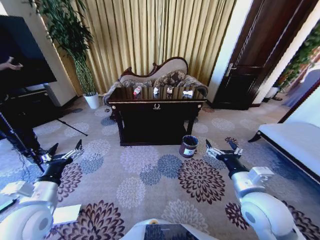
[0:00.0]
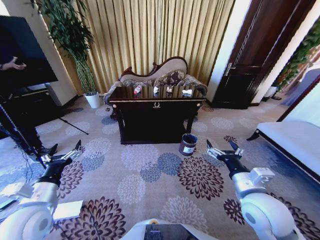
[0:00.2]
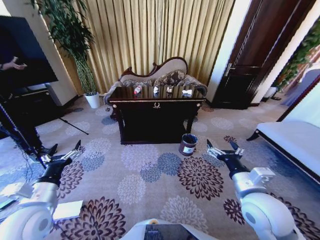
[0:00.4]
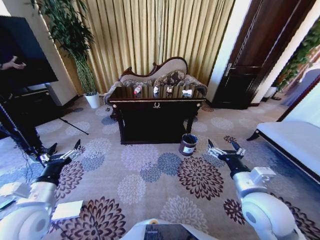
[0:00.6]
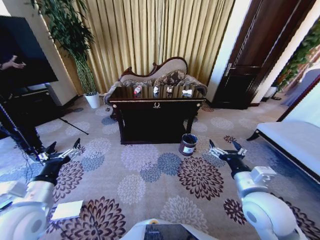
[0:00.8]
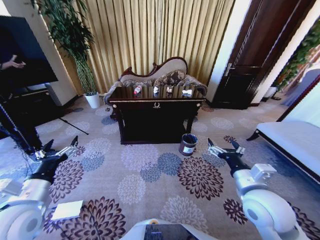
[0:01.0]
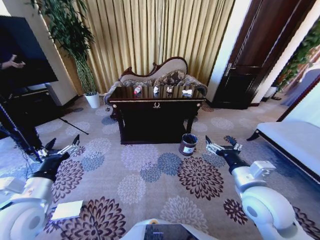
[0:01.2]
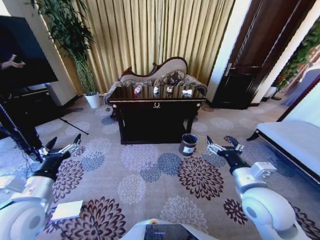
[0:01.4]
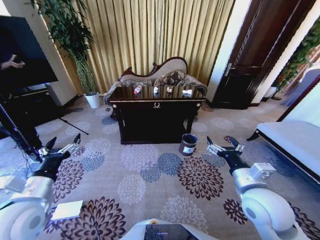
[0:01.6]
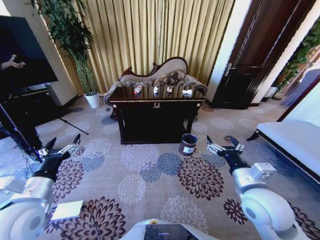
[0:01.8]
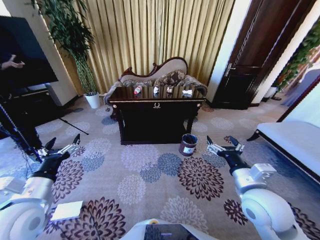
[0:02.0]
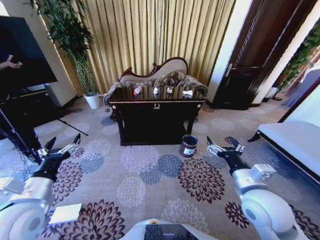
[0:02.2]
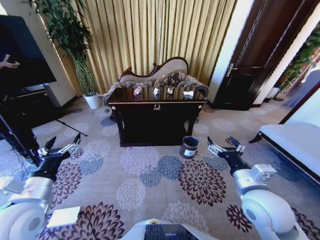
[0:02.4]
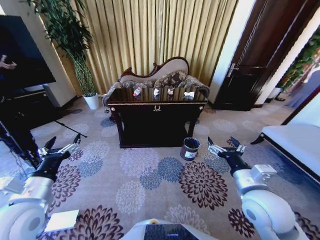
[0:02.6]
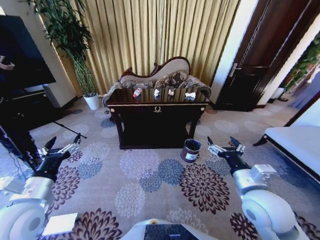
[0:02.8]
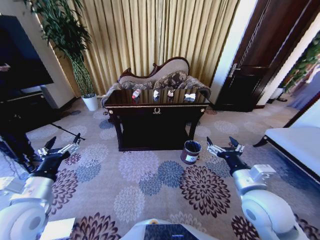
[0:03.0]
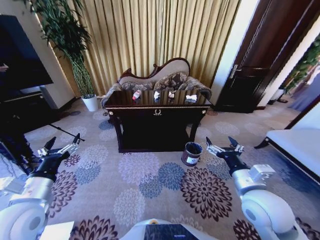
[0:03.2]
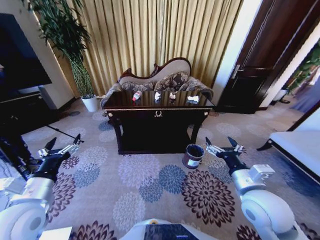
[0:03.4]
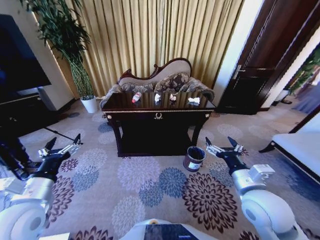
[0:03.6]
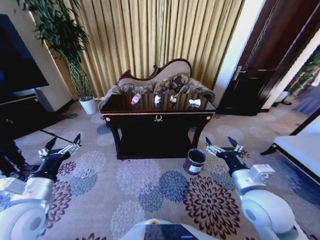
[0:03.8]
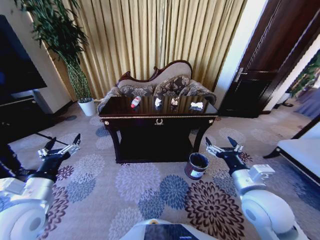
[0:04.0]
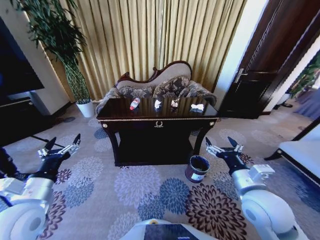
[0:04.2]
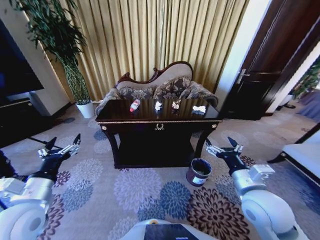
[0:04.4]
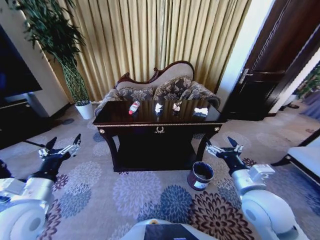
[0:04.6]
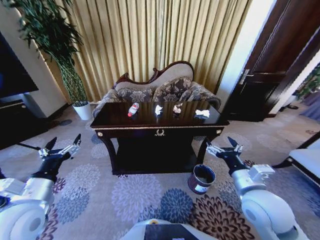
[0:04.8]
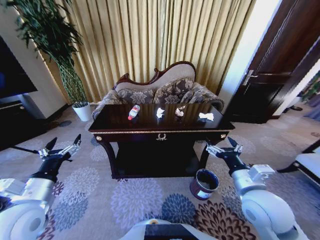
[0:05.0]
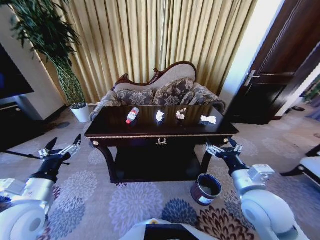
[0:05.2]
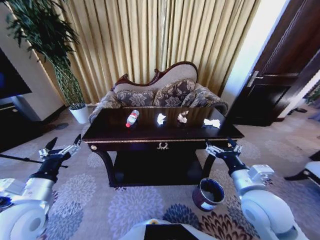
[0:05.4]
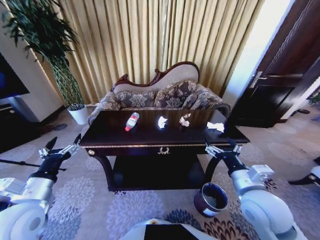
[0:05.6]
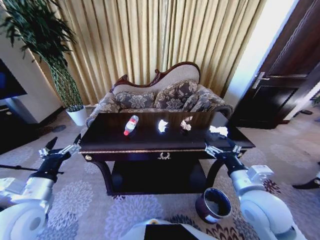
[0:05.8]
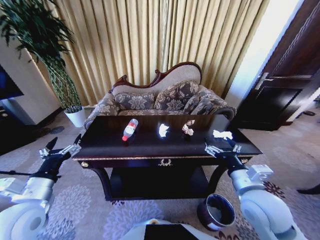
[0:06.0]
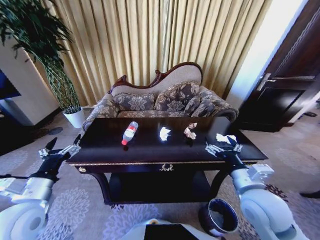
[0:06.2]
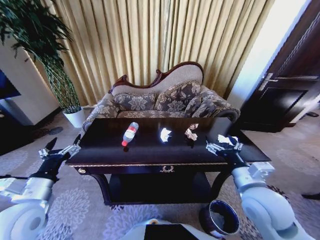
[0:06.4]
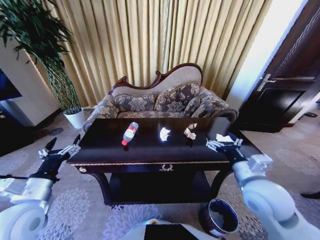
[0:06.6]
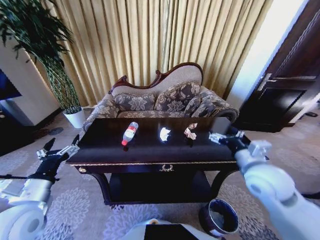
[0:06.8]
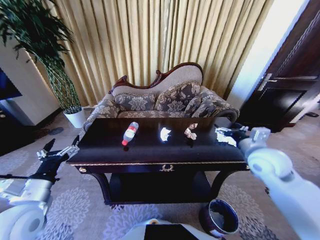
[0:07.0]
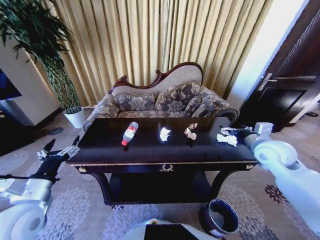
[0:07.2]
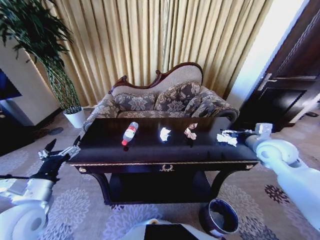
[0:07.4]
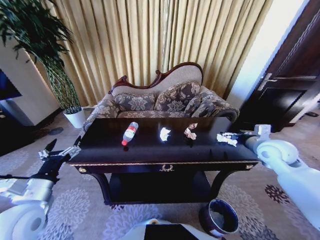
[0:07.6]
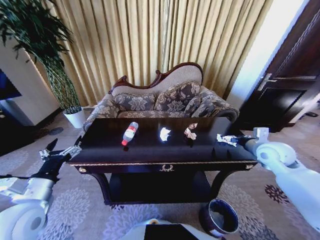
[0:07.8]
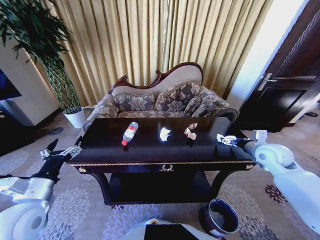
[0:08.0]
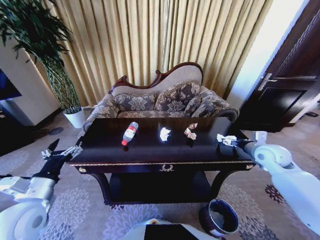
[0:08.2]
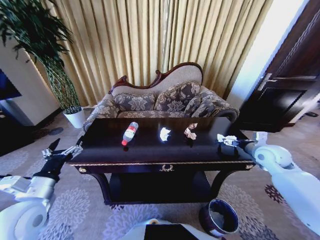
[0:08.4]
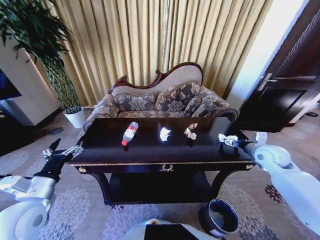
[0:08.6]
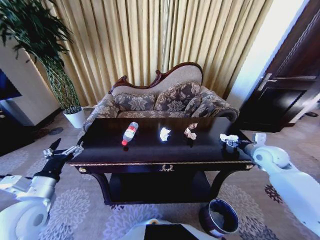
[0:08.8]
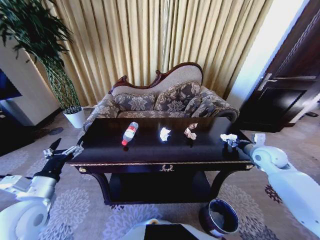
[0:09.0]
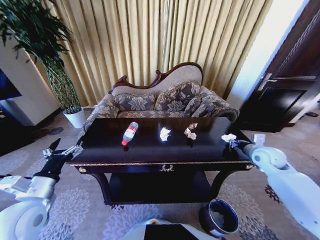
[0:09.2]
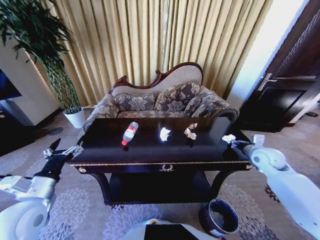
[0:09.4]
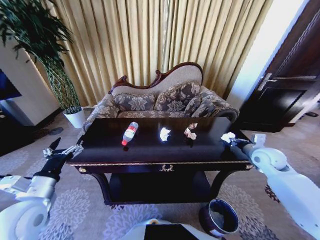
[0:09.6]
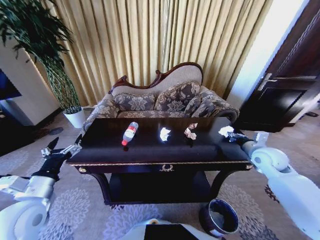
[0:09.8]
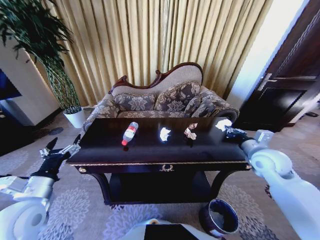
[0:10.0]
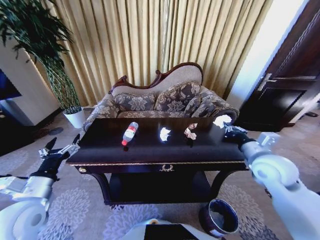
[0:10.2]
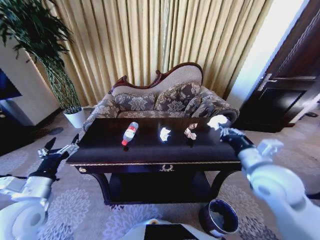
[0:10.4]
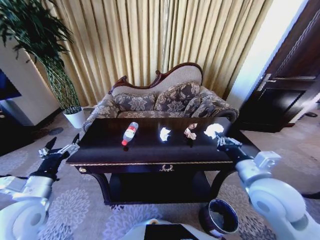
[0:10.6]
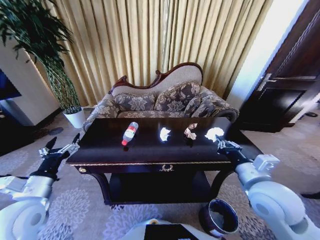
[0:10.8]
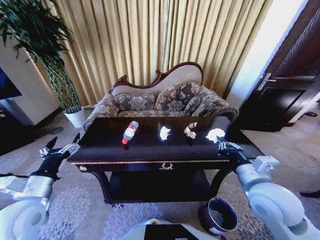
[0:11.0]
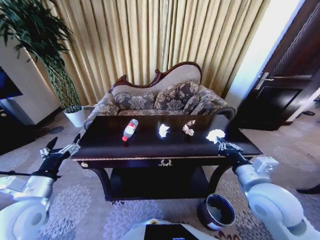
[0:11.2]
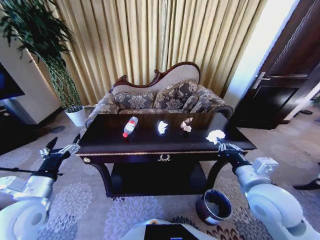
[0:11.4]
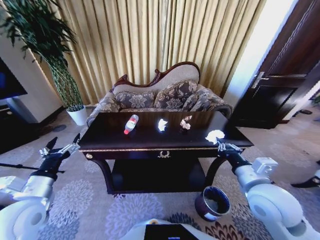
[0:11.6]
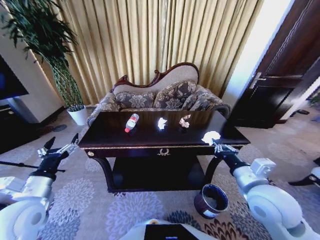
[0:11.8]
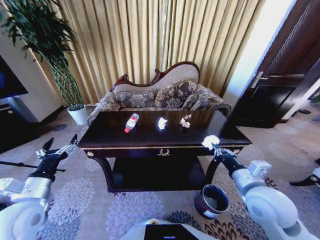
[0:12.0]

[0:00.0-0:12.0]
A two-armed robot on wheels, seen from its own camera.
Task of the whole recording: Move to the front of the table and place the trash on the table into the trash bin.
0:06.0 to 0:07.6: The right gripper heads forward and to the right, covering some 20 cm.
0:07.6 to 0:09.0: The right gripper goes about 5 cm downward, and closes up.
0:09.0 to 0:10.4: The right gripper shifts some 25 cm to the left, backward and upward, and closes its fingers.
0:10.4 to 0:12.0: The right gripper is displaced downward by some 5 cm.

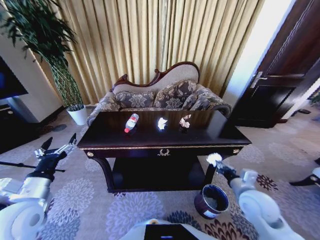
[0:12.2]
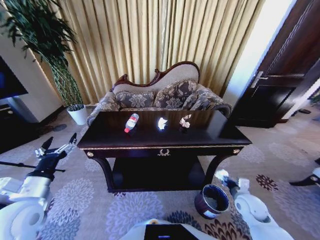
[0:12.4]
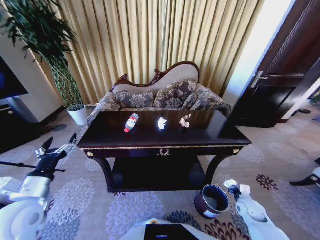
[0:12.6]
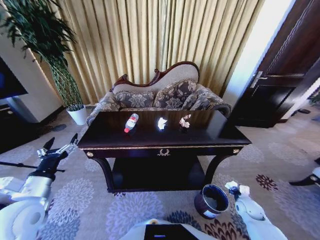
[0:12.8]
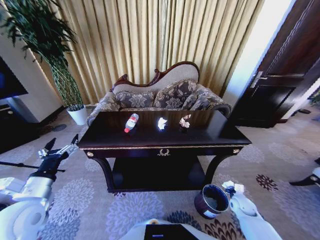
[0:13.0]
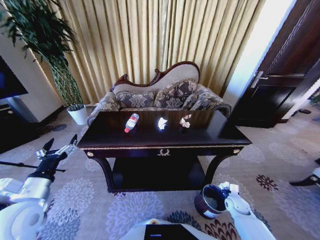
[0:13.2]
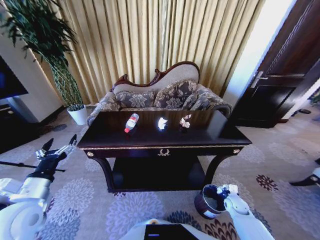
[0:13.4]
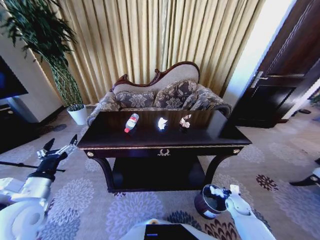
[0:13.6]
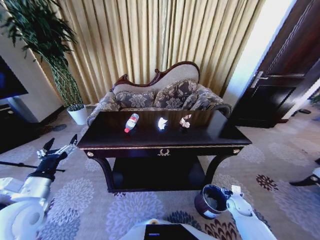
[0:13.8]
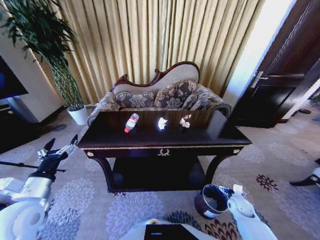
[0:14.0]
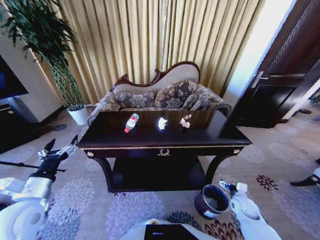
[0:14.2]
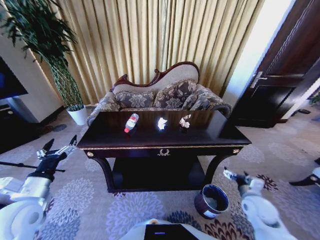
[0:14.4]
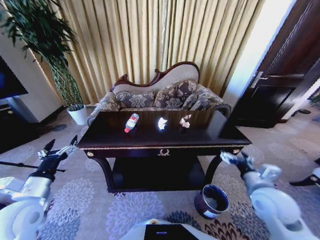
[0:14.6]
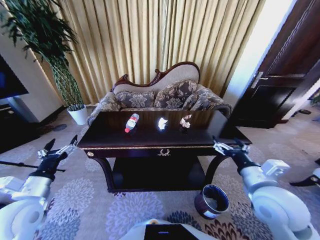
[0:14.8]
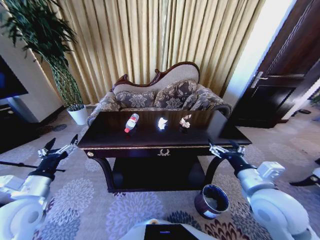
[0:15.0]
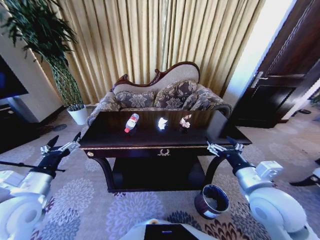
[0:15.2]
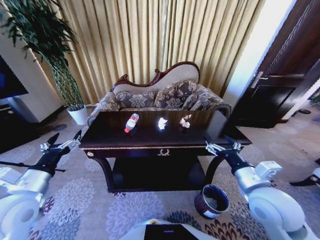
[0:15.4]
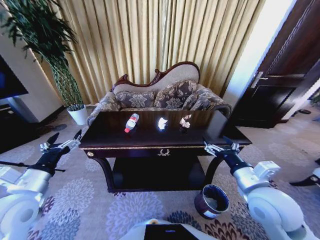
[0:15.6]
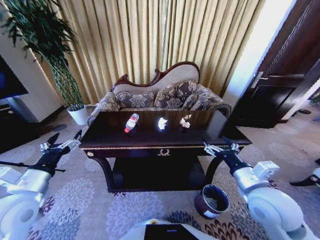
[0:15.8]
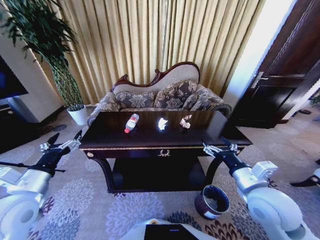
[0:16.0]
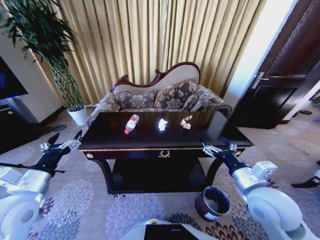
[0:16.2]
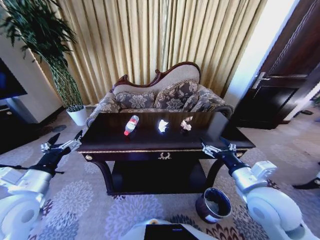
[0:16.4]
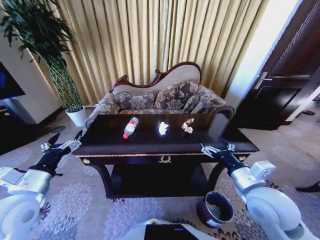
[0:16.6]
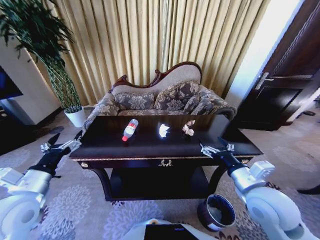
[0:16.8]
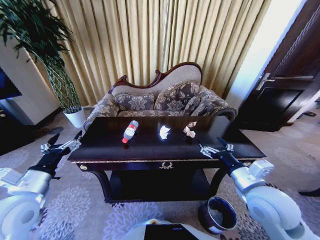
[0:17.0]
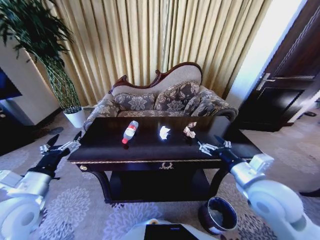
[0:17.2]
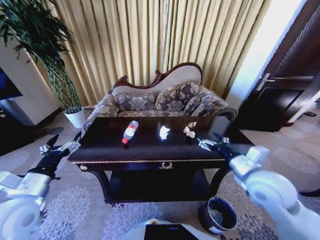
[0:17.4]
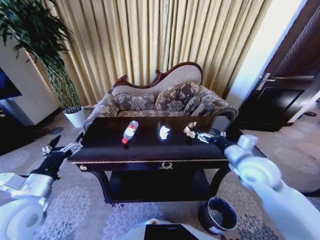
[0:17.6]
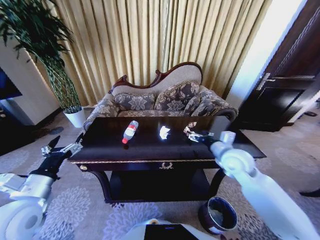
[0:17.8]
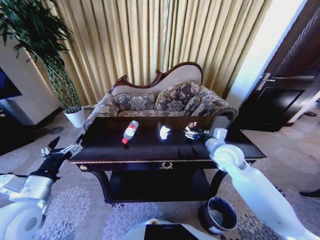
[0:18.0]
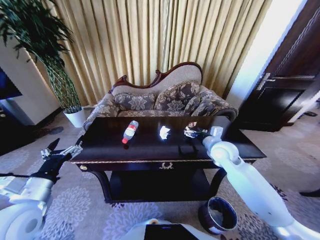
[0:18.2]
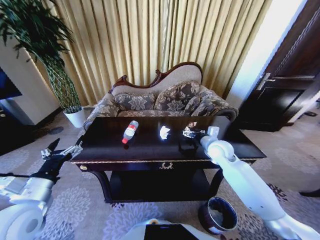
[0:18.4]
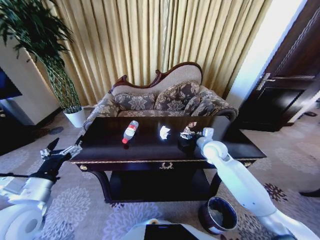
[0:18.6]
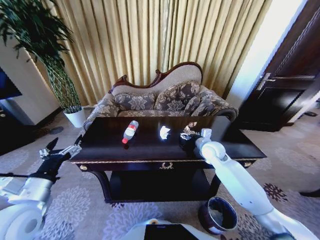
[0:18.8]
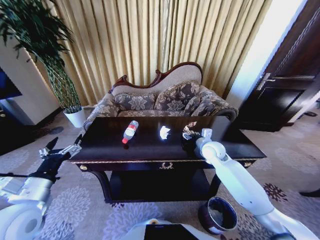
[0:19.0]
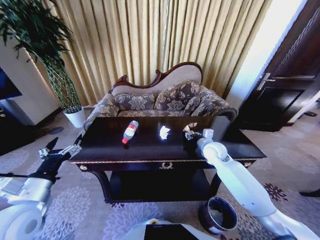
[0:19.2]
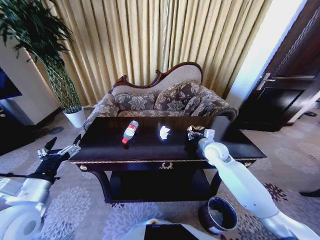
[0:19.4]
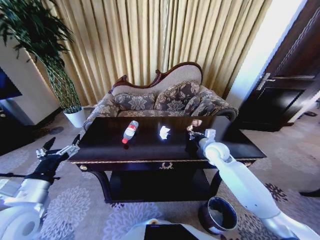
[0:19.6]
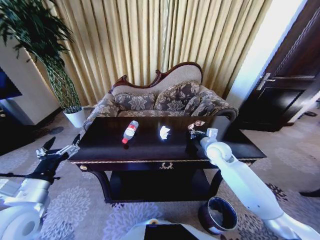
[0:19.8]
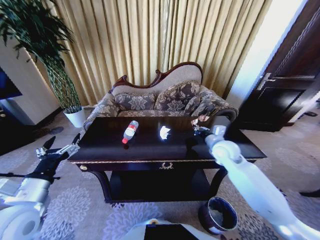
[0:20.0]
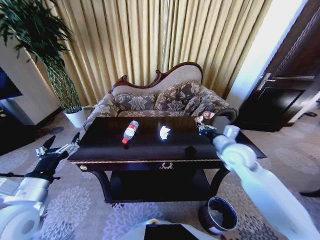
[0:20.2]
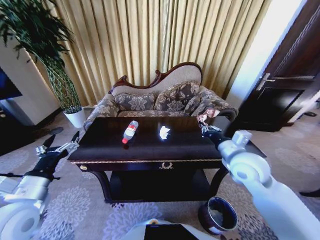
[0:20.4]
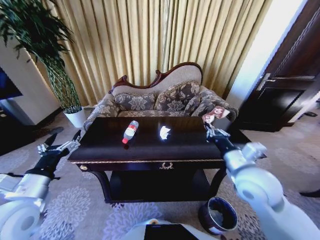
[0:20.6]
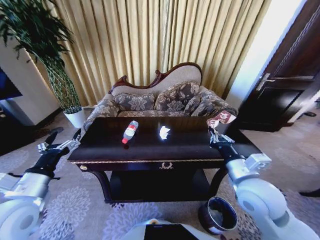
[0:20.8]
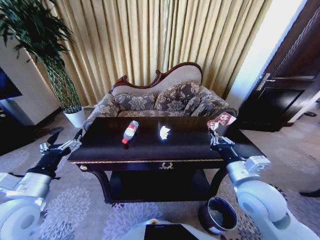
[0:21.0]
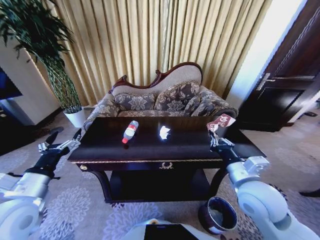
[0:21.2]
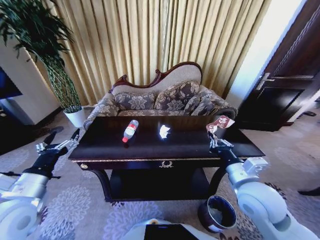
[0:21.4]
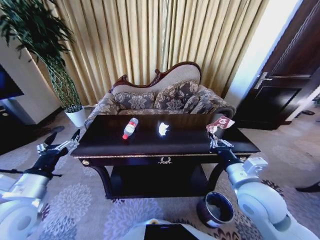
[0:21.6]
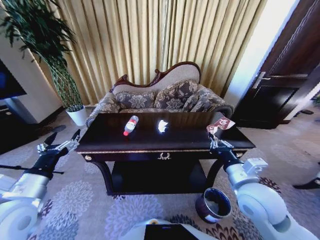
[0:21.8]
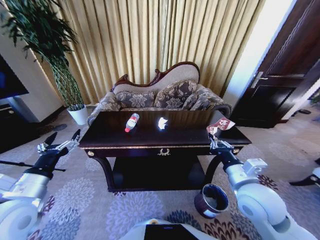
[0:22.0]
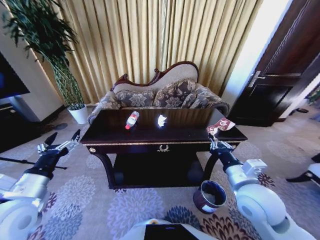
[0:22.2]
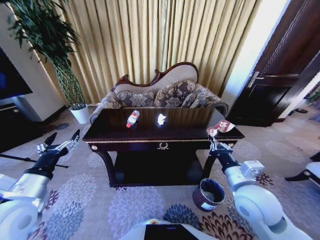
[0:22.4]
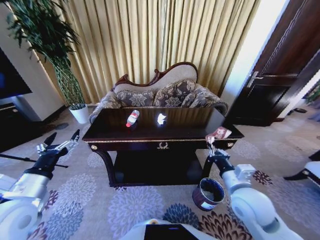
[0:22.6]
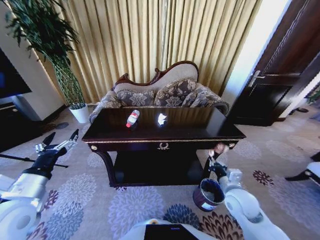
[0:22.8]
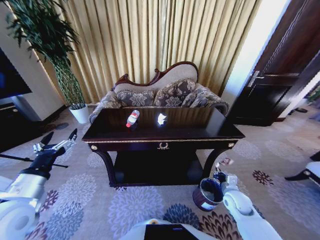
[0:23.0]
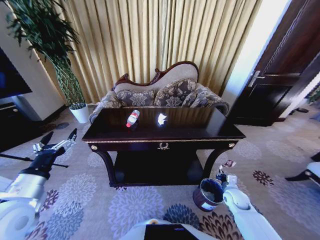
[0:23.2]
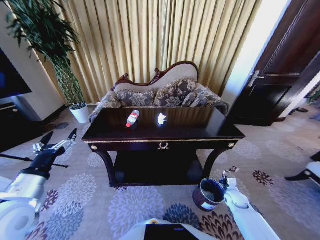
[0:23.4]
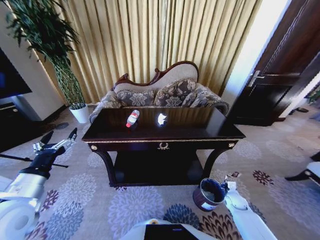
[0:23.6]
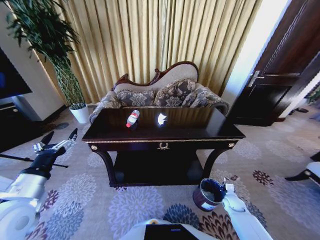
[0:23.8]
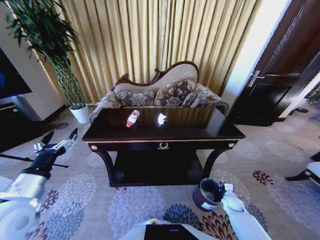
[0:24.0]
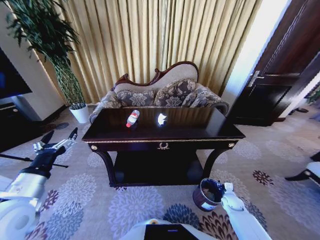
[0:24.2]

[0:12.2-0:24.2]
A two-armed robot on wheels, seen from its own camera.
Task of the whole recording: Move to the front of the table and place the trash on the table into the trash bin.
0:12.2 to 0:13.8: The right gripper shifts about 25 cm downward and to the right, and opens.
0:13.8 to 0:15.2: The right gripper moves upward and to the left, about 35 cm.
0:16.6 to 0:18.2: The right gripper goes roughly 20 cm forward.
0:18.2 to 0:19.8: The right gripper closes.
0:19.8 to 0:21.2: The right gripper heads backward, covering about 20 cm.
0:22.6 to 0:24.2: The right gripper heads downward and to the right, covering some 35 cm, and opens.
